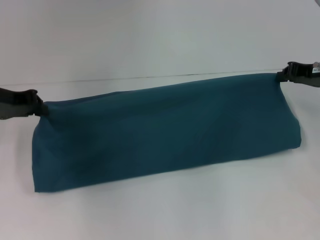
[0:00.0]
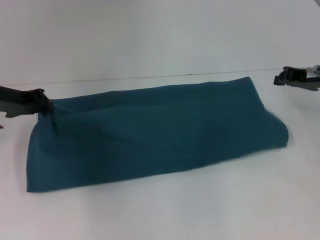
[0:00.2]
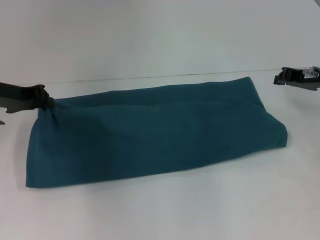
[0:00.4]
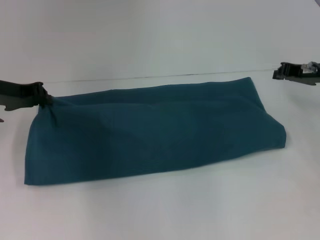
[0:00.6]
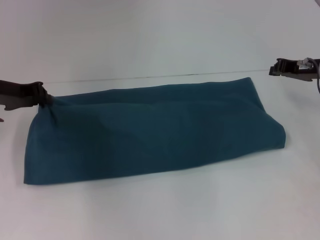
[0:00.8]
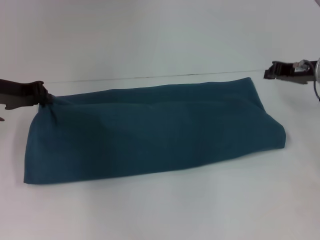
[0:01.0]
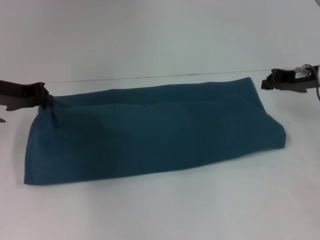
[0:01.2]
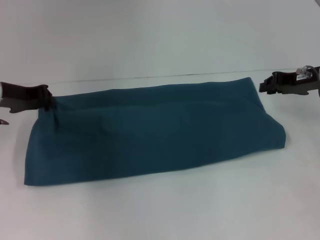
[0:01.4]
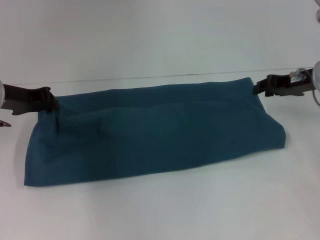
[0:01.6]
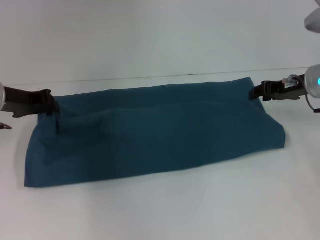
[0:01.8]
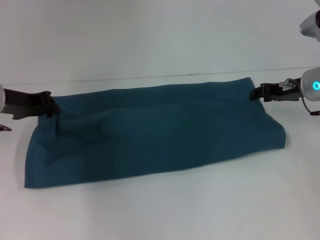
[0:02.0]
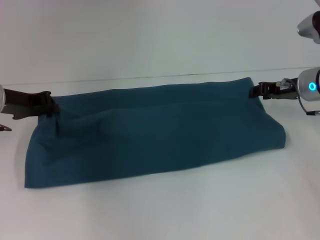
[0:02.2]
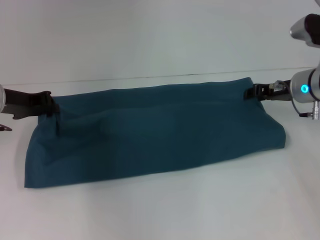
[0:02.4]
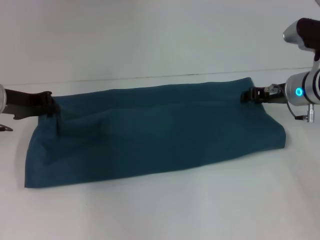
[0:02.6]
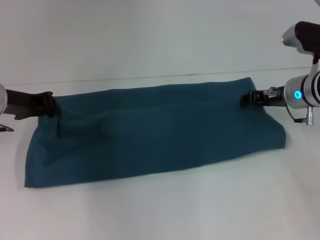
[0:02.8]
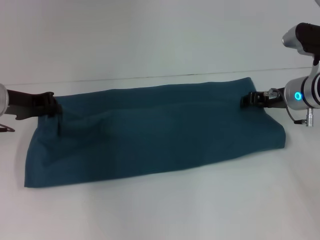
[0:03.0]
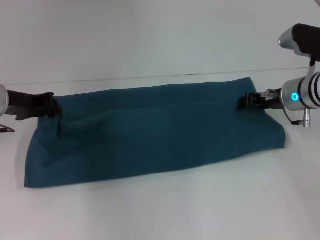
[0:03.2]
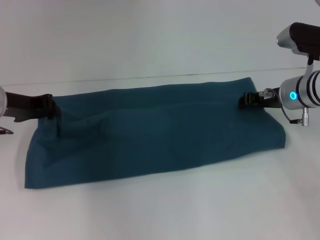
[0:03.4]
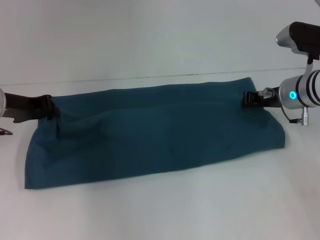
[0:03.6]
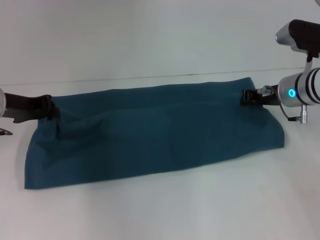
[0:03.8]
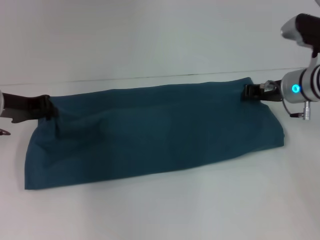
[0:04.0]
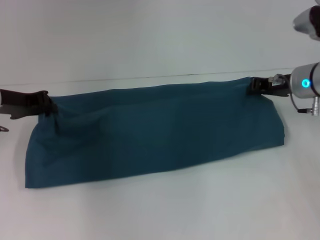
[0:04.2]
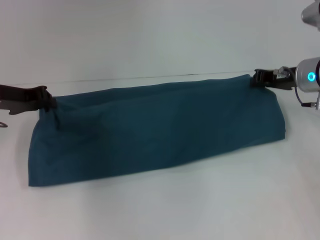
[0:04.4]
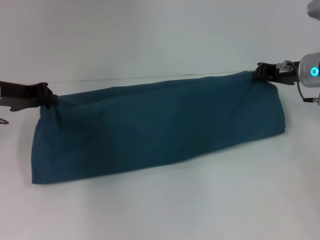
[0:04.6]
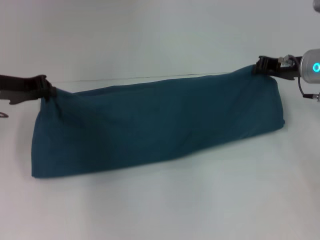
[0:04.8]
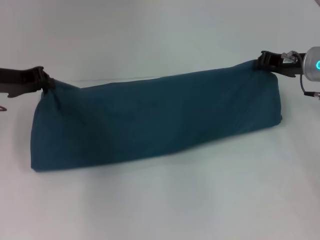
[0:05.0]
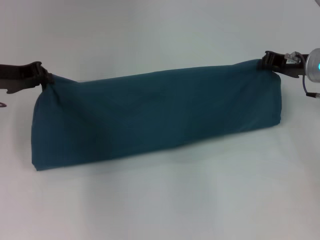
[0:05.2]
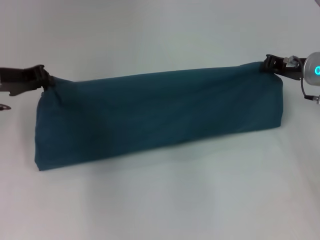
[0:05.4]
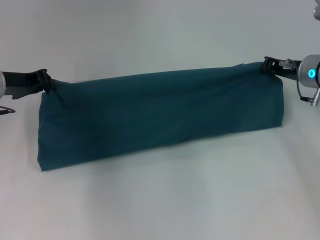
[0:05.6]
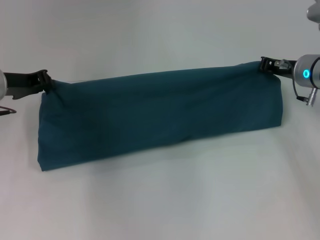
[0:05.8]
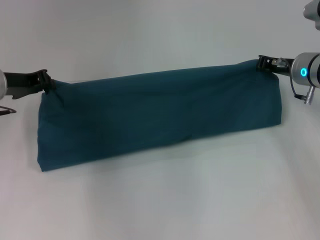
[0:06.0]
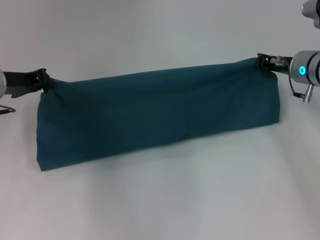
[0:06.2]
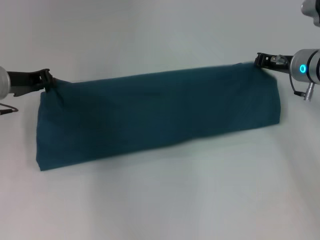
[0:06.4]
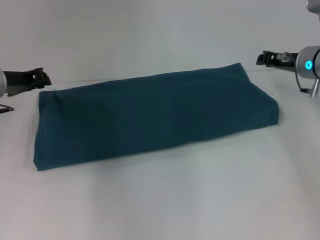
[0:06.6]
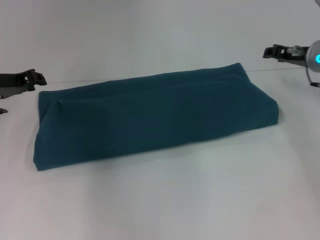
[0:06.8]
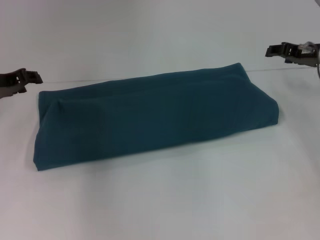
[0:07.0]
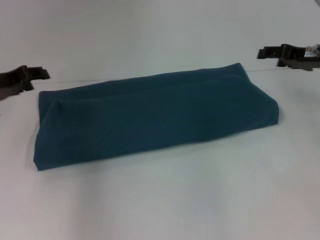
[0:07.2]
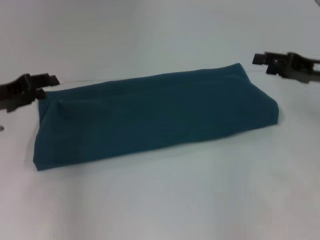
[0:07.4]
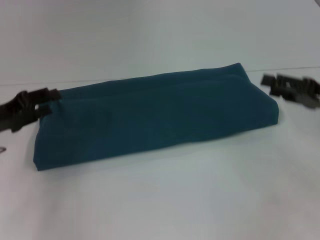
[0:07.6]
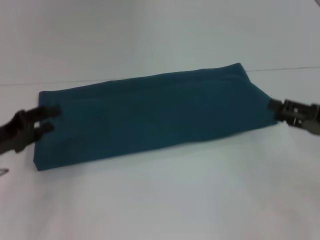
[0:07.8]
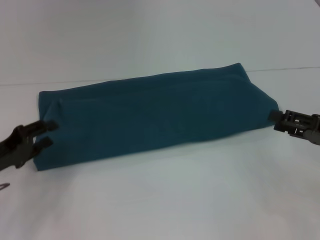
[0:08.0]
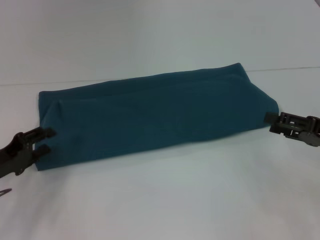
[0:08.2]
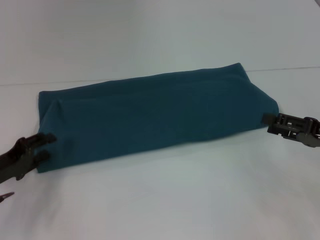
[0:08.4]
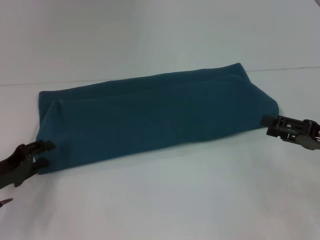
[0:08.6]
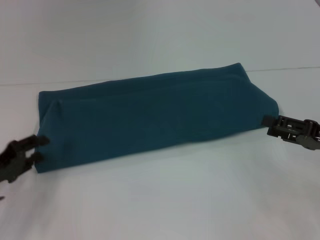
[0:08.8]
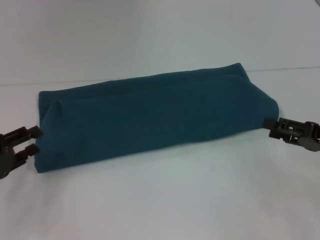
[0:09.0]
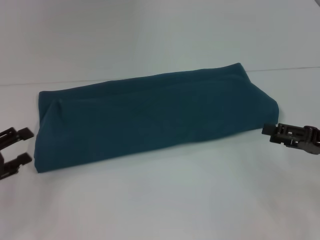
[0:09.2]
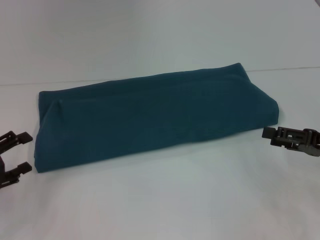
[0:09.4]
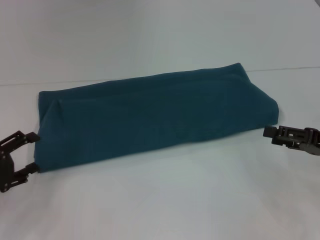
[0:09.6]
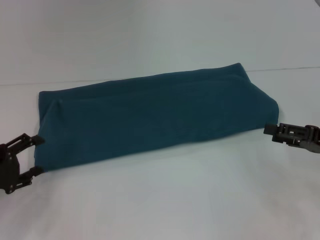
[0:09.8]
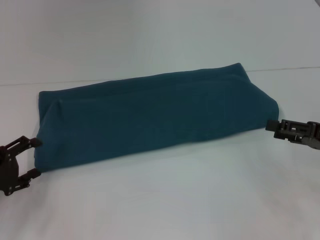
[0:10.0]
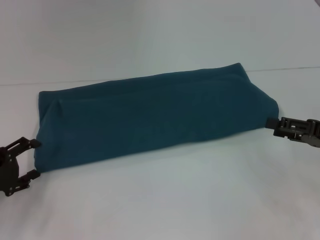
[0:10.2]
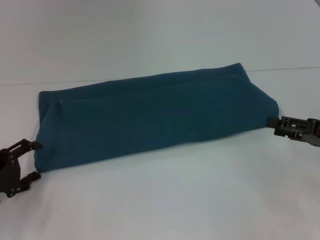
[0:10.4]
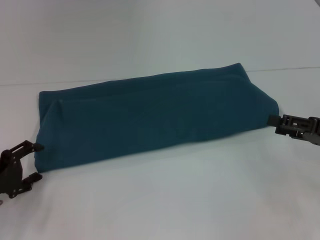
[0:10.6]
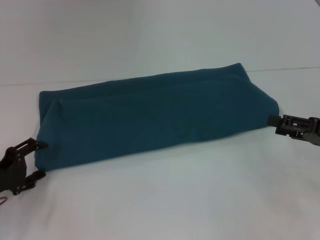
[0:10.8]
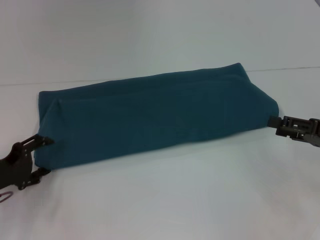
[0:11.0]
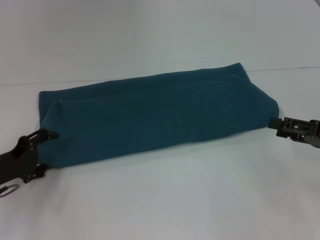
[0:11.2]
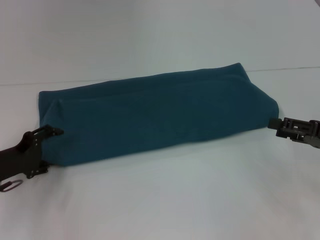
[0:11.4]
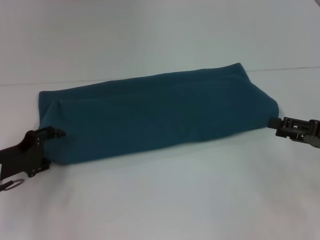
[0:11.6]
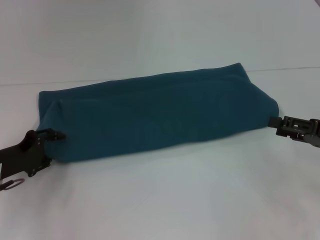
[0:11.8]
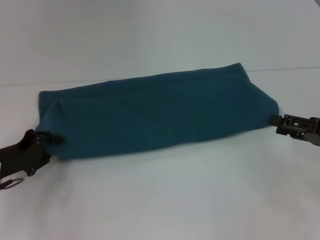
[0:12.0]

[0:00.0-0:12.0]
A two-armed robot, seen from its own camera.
Step, 0:00.0 to 0:06.4: Fold the clothes to the right.
0:00.0 to 0:01.6: The grippers make only small movements.
0:01.6 to 0:03.0: The right gripper changes place by about 5 cm.
0:03.0 to 0:04.4: The right gripper closes.
0:04.4 to 0:06.0: The grippers make only small movements.
0:06.0 to 0:07.6: The left gripper heads backward, covering some 10 cm, and opens its fingers. Meanwhile the right gripper travels backward and to the right by about 15 cm, and opens up.
0:07.6 to 0:09.0: The left gripper travels backward by approximately 5 cm. Meanwhile the right gripper changes place by roughly 5 cm.
0:10.4 to 0:12.0: The left gripper changes place by roughly 5 cm, and closes up.

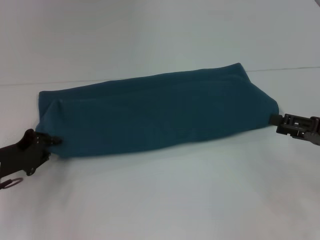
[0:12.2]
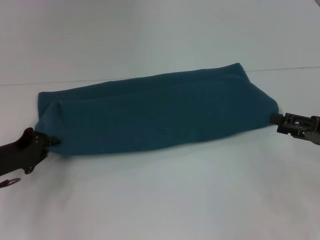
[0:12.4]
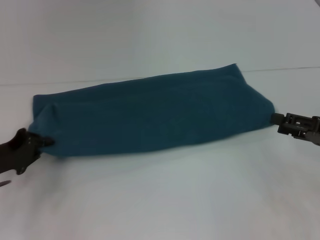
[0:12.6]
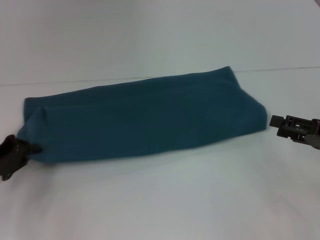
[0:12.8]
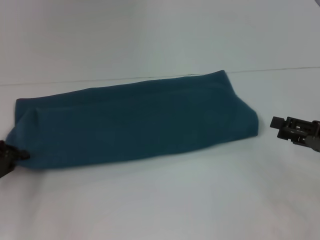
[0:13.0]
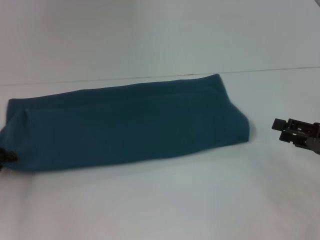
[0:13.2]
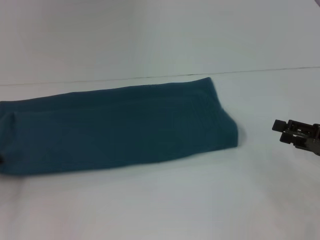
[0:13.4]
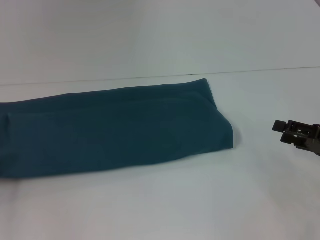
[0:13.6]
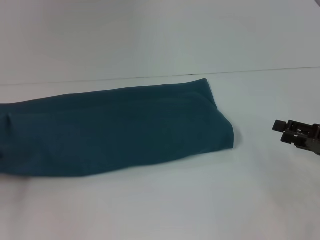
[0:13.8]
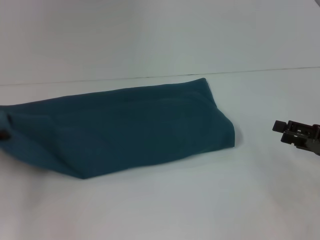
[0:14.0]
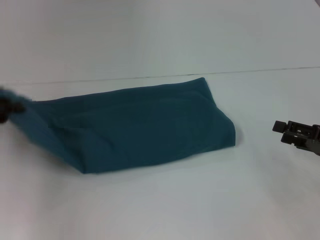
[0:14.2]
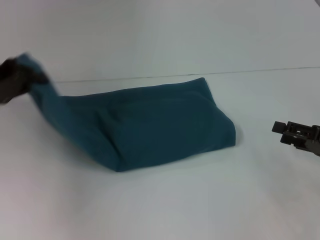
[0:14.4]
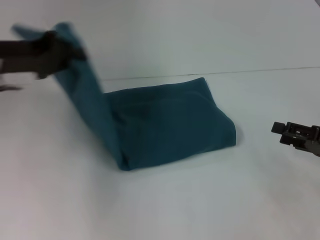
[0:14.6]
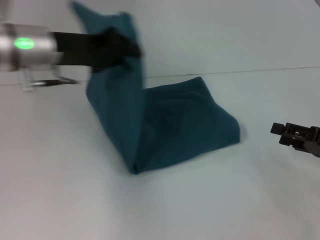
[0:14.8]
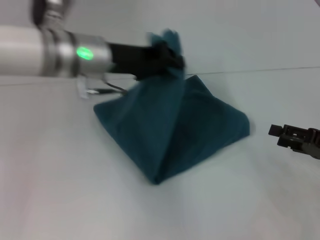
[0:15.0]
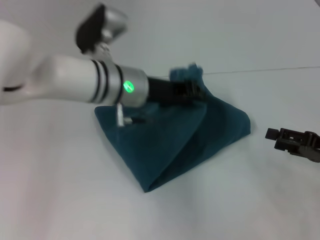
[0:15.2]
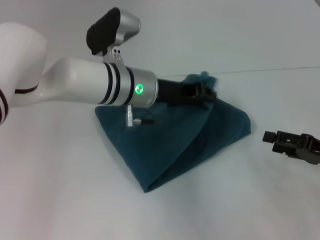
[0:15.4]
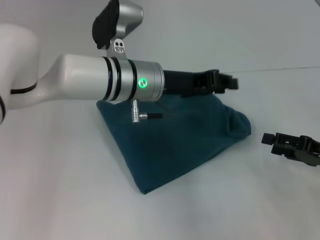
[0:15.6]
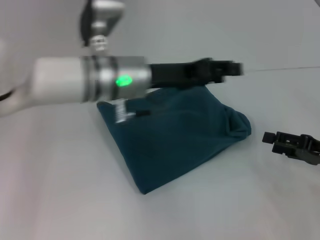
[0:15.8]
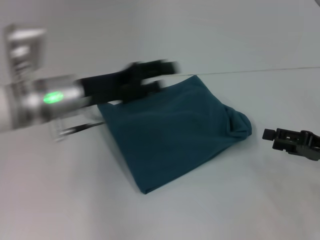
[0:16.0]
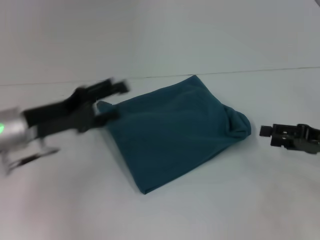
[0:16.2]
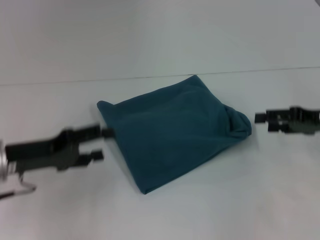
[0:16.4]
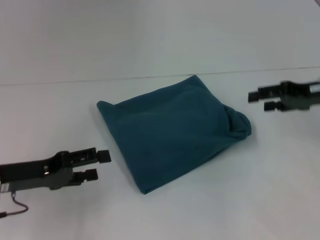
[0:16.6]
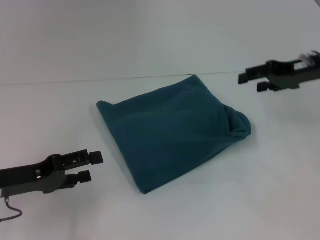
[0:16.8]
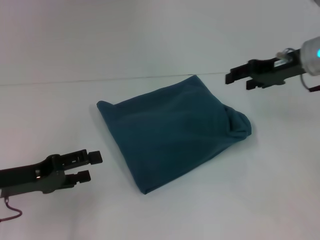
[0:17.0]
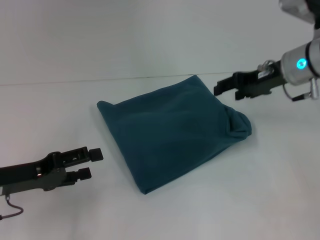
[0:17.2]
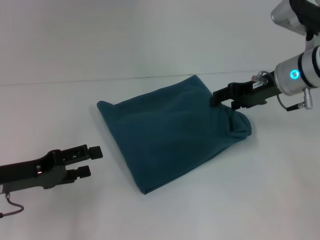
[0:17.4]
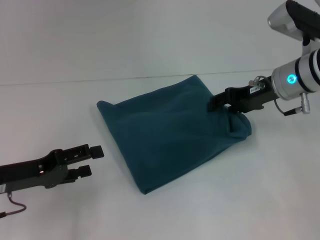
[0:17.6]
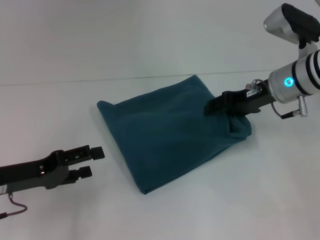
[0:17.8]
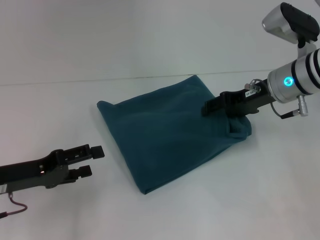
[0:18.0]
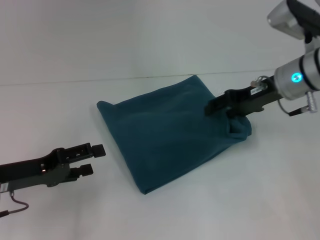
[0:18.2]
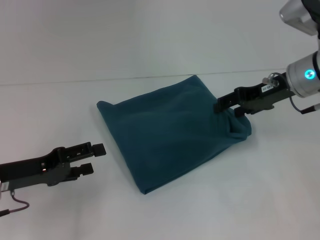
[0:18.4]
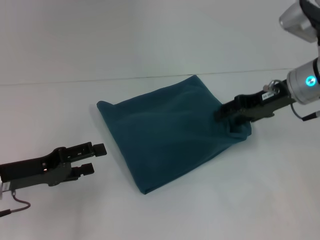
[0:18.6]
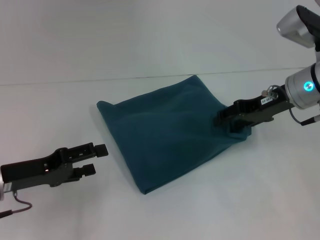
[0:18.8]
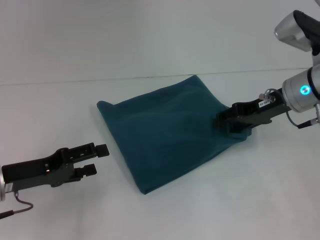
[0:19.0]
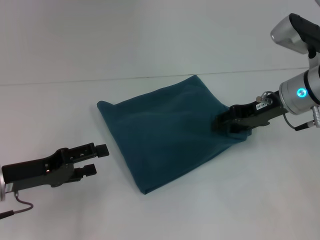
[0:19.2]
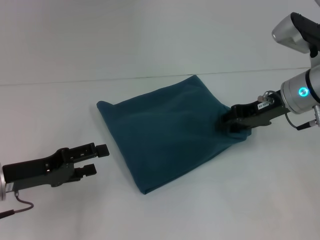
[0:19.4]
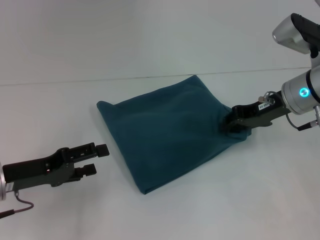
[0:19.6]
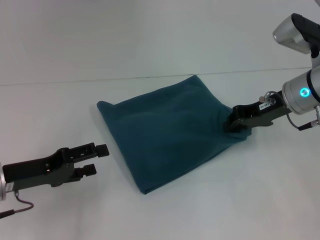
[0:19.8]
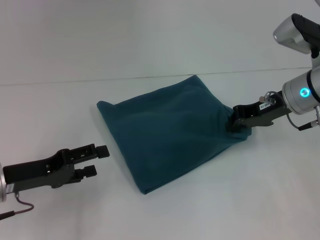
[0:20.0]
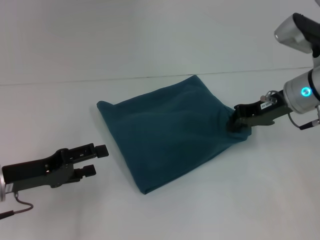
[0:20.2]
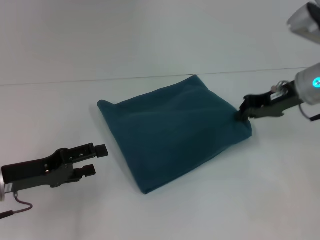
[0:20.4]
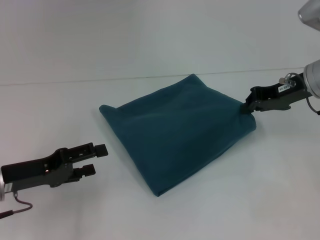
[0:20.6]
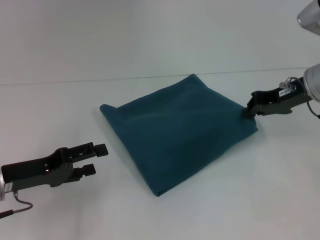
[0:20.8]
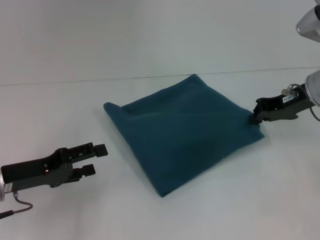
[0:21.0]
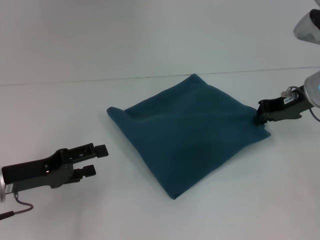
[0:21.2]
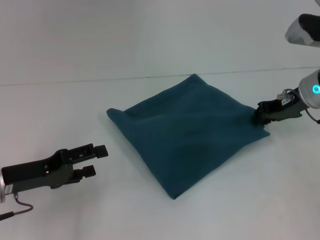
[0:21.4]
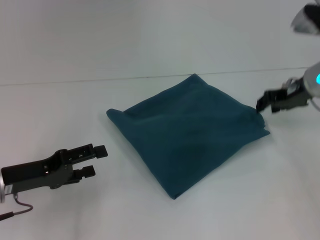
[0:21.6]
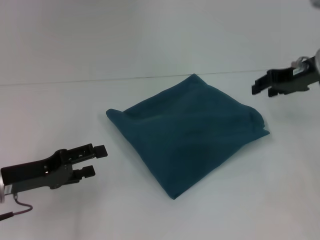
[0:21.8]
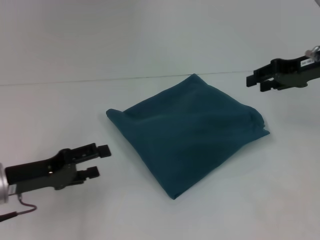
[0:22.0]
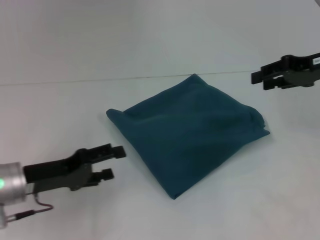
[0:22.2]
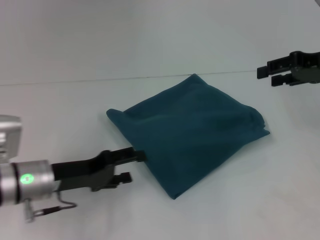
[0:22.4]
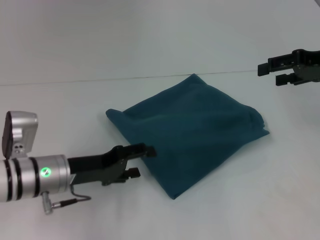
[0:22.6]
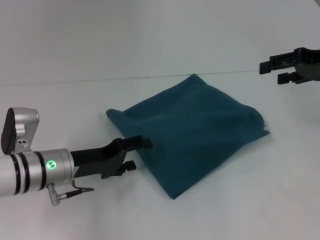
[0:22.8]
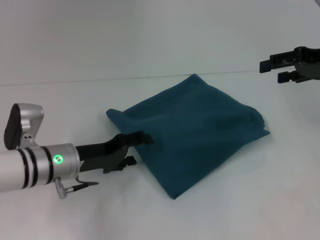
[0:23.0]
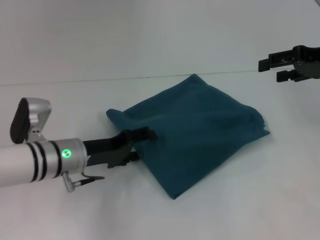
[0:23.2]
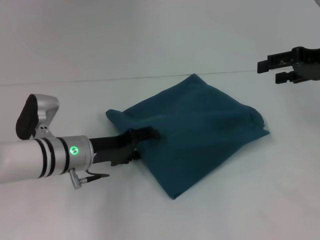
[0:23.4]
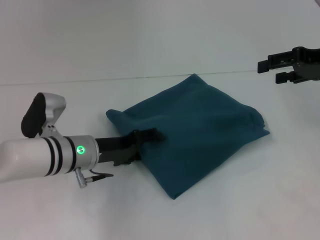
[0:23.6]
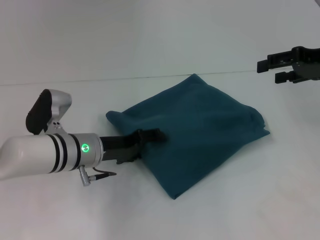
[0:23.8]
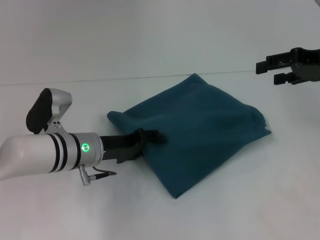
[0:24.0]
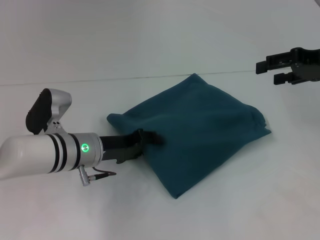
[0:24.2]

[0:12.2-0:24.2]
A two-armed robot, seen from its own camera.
Step, 0:12.2 to 0:15.6: Fold the clothes to the left.
0:12.2 to 0:13.8: The left gripper travels to the left by approximately 10 cm.
0:13.8 to 0:15.2: The left gripper travels to the right by some 30 cm.
0:15.2 to 0:16.6: The right gripper travels forward and upward by some 15 cm. The left gripper is displaced to the left and backward by about 25 cm, and opens.
0:16.6 to 0:18.2: The right gripper is displaced to the left by about 10 cm.
0:18.2 to 0:19.8: The right gripper closes its fingers.
0:19.8 to 0:21.2: There are only small adjustments of the grippers.
0:21.2 to 0:22.6: The left gripper heads to the right, covering about 10 cm, while the right gripper shifts approximately 10 cm upward and to the right, and opens up.
0:22.6 to 0:24.2: The left gripper shifts by roughly 5 cm.
